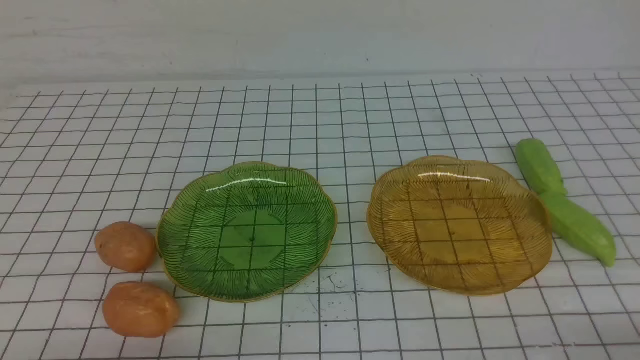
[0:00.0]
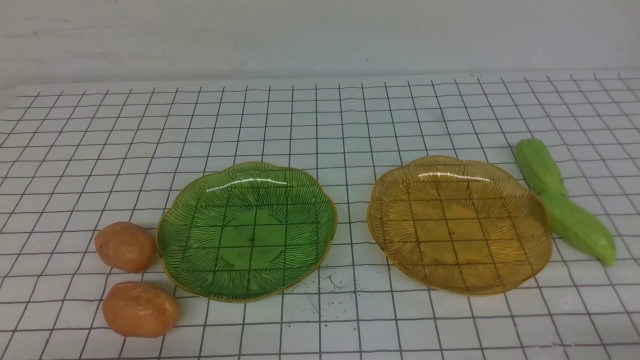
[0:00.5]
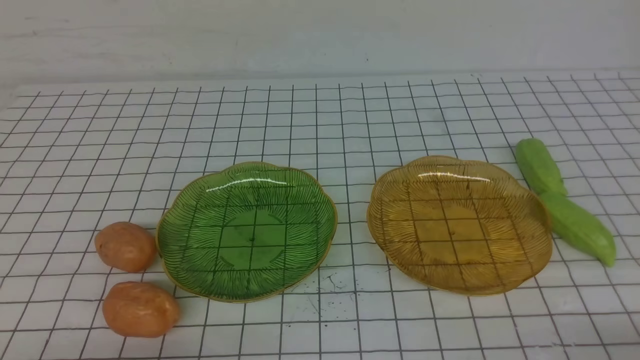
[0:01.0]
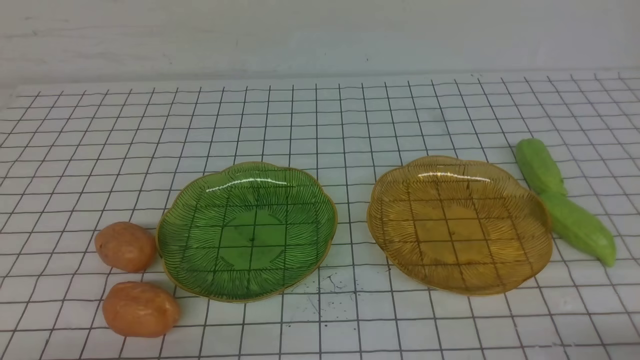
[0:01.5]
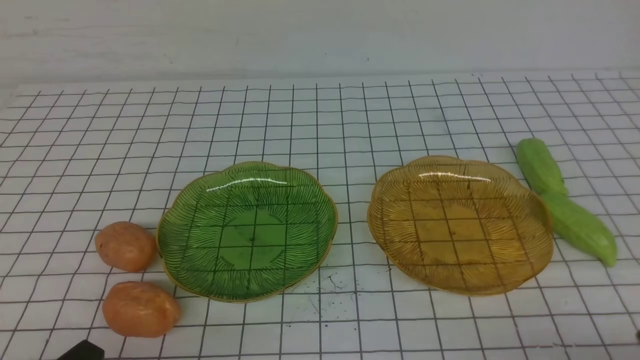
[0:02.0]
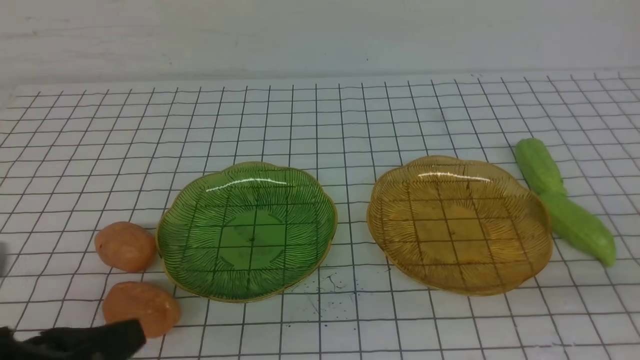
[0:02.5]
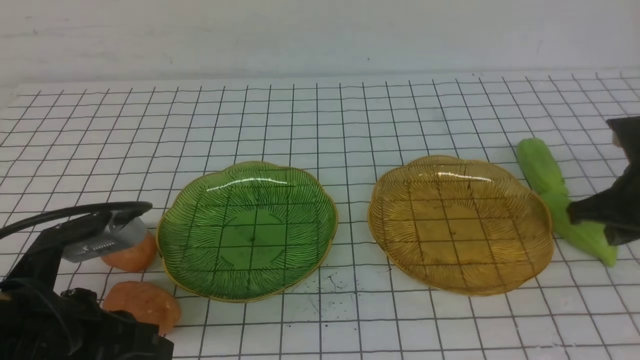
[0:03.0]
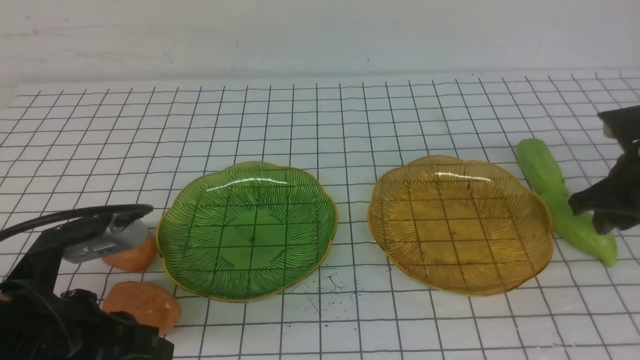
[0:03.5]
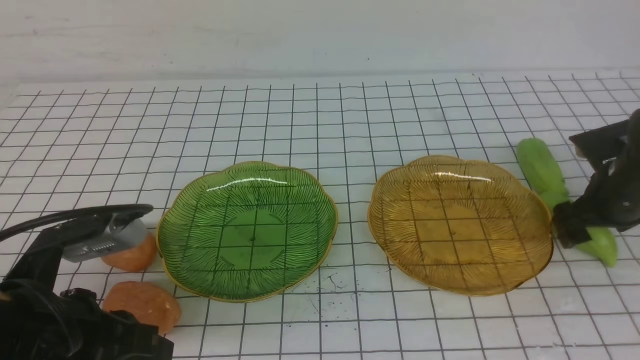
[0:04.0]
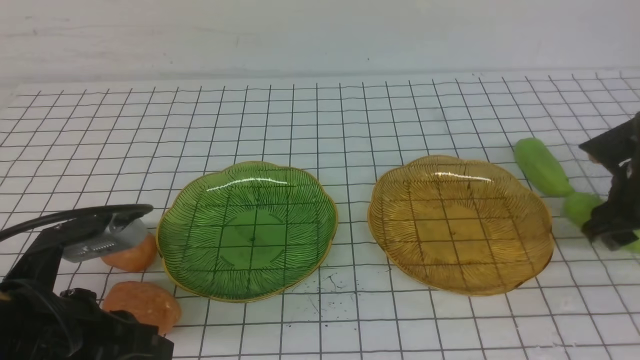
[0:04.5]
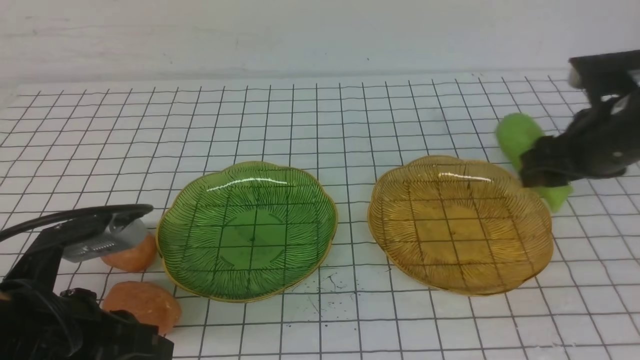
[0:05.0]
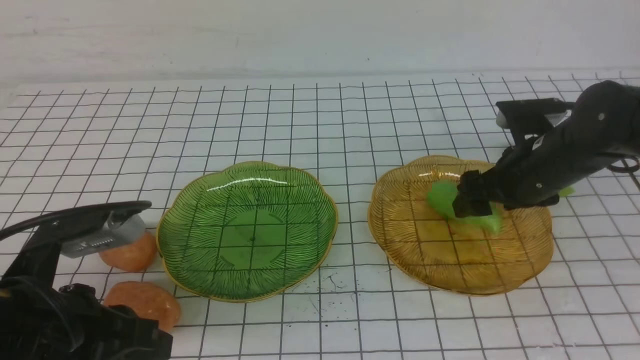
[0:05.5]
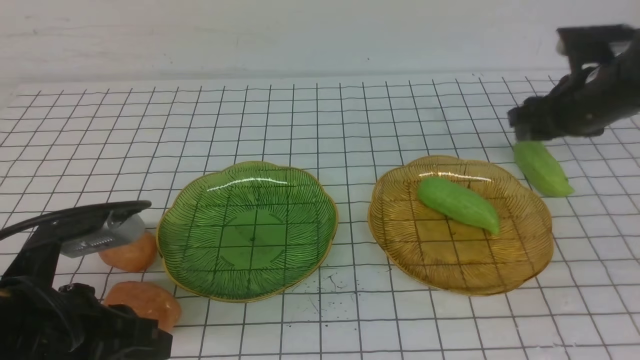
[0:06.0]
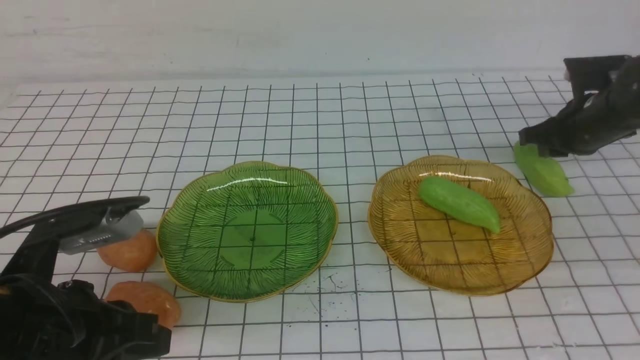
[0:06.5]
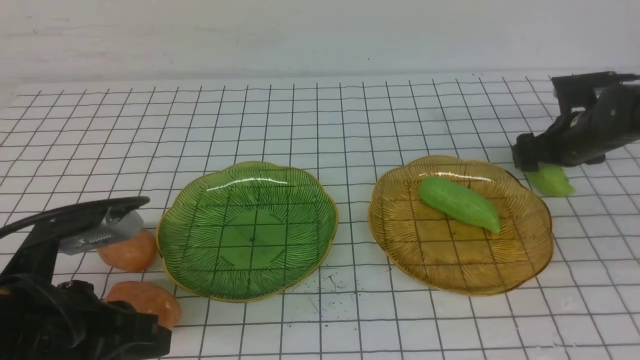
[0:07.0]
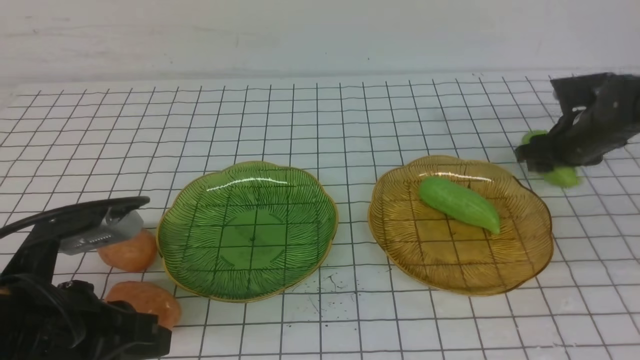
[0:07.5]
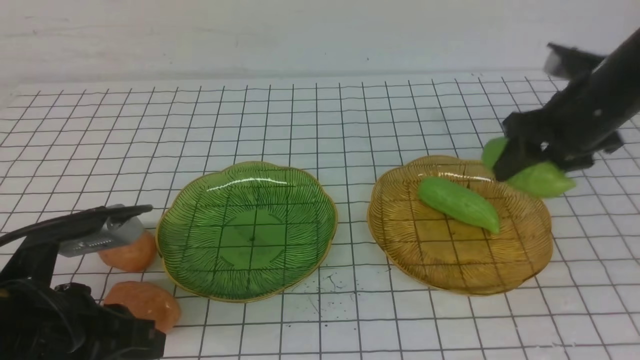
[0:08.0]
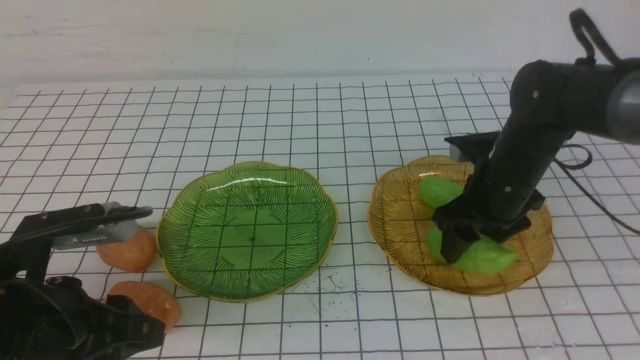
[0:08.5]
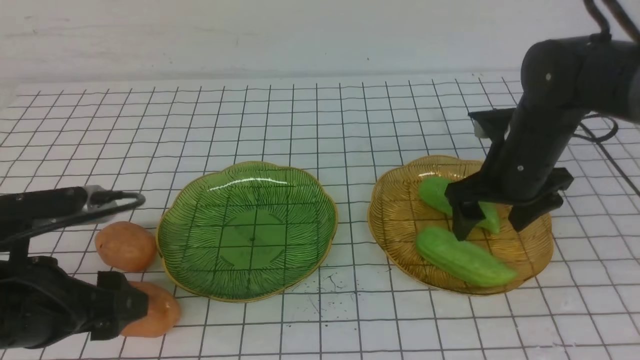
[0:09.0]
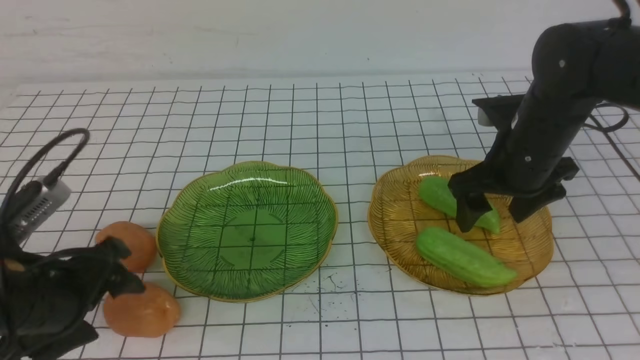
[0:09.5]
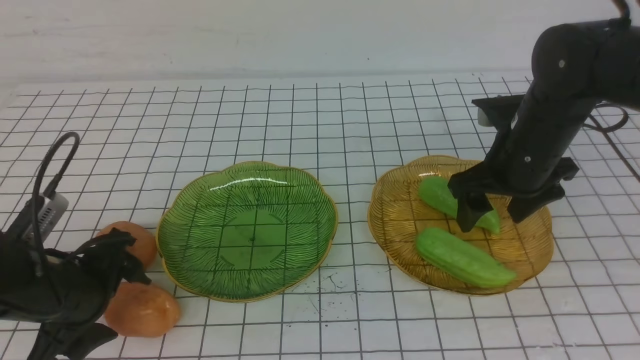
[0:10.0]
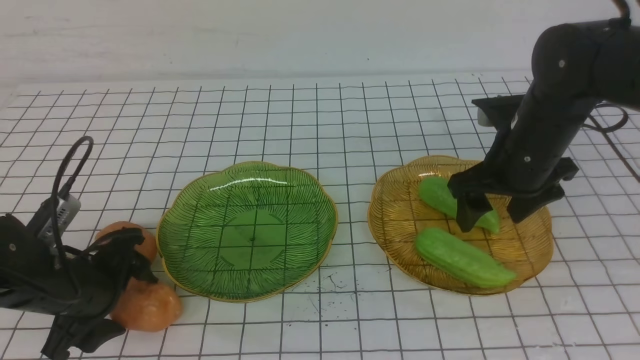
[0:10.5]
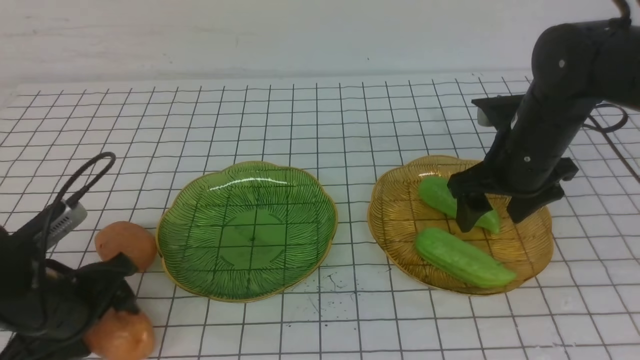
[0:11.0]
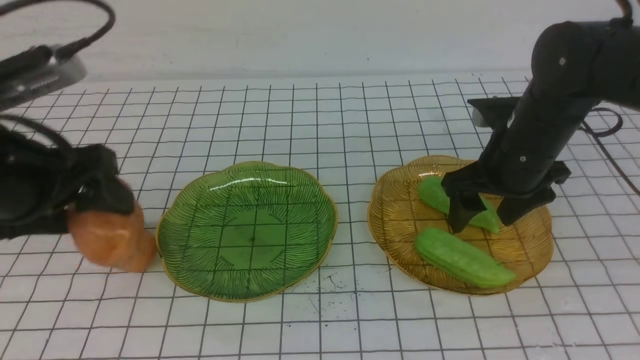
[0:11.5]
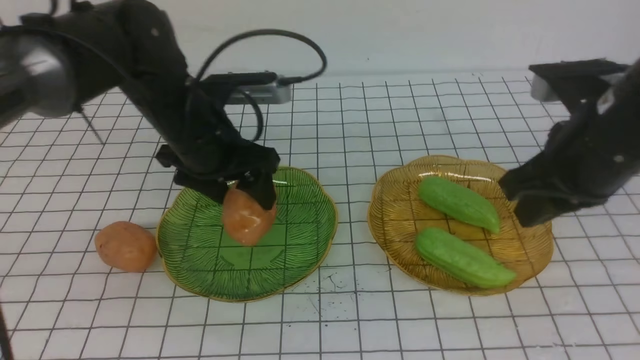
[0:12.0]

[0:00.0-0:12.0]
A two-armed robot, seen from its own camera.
Step, 0:00.0 to 0:08.5: use the right arm to grab a chayote and put it into the right plate.
0:02.0 to 0:04.0: The left gripper shifts about 10 cm forward. Meanwhile the right gripper travels forward by some 30 cm, and opens up.
0:04.0 to 0:06.0: The right gripper goes some 5 cm upward, and closes.
0:06.0 to 0:08.0: The right gripper travels downward and back again, roughly 10 cm each way.
0:08.0 to 0:10.0: The right gripper heads to the left, covering about 5 cm, while the left gripper shifts some 10 cm forward and downward, and opens its fingers.
0:10.0 to 0:12.0: The left gripper travels forward, to the right and upward by approximately 20 cm. The right gripper moves backward and upward, roughly 10 cm, and closes its fingers.

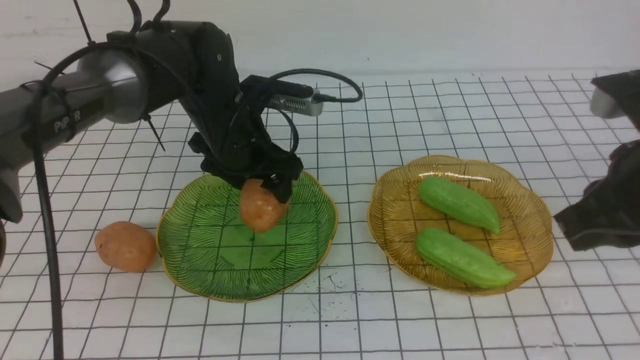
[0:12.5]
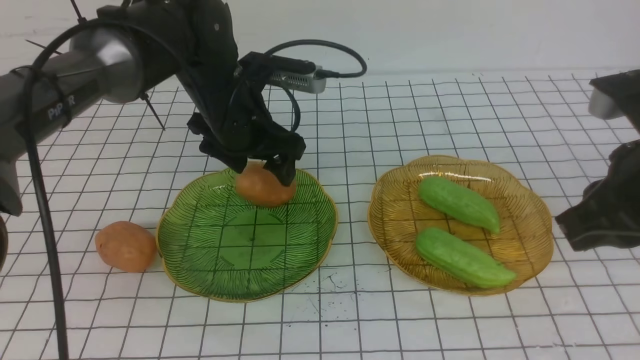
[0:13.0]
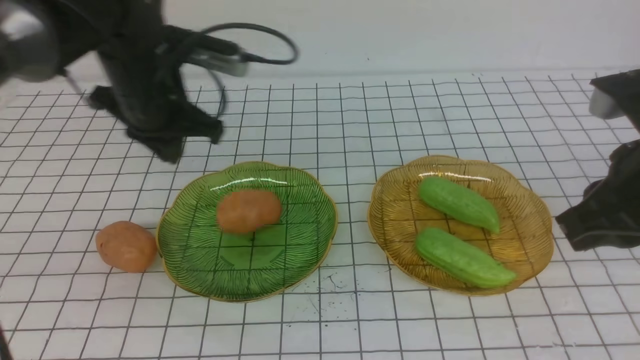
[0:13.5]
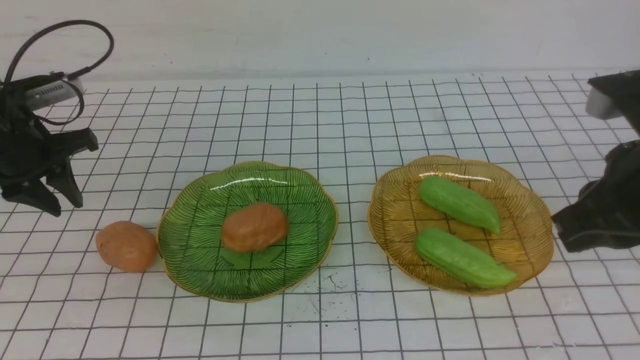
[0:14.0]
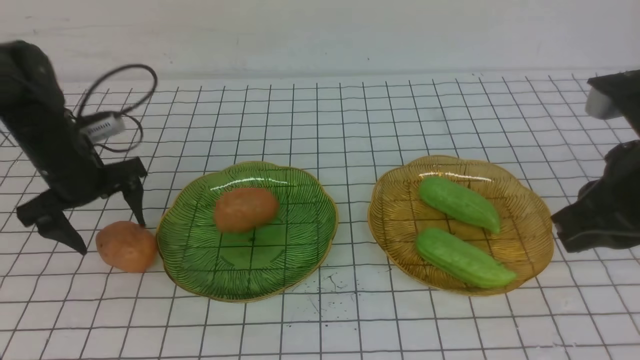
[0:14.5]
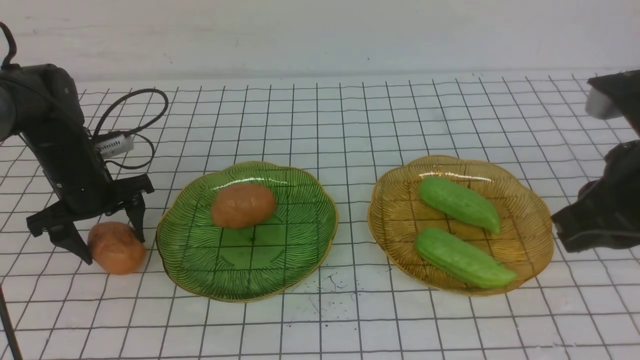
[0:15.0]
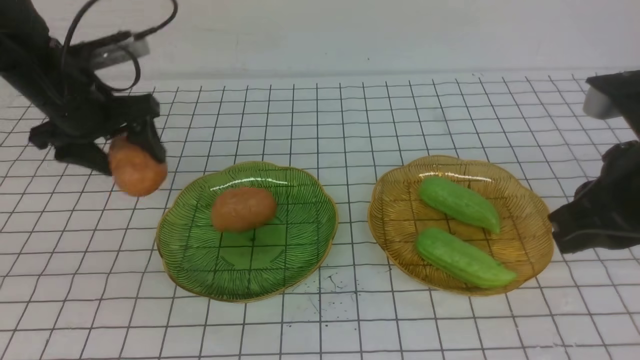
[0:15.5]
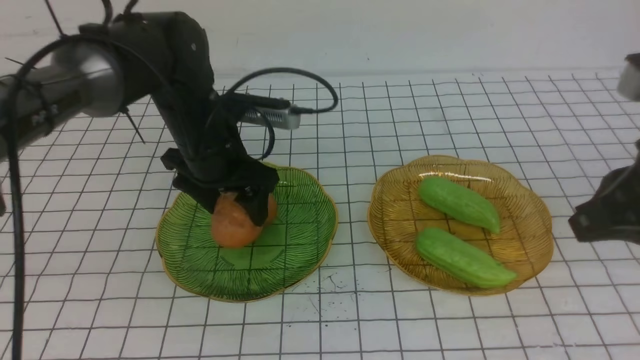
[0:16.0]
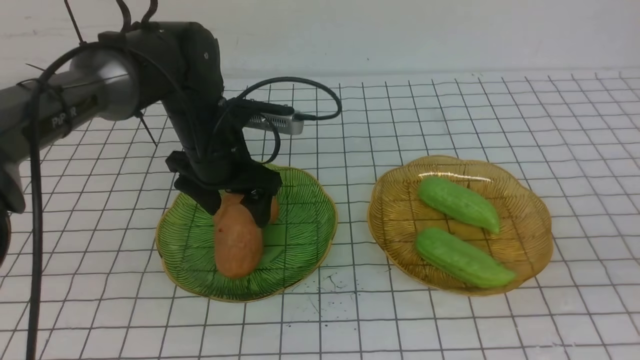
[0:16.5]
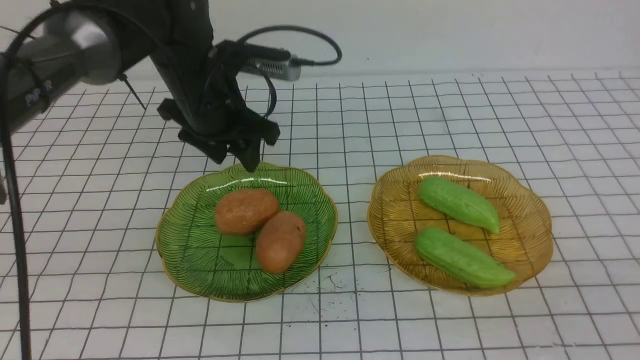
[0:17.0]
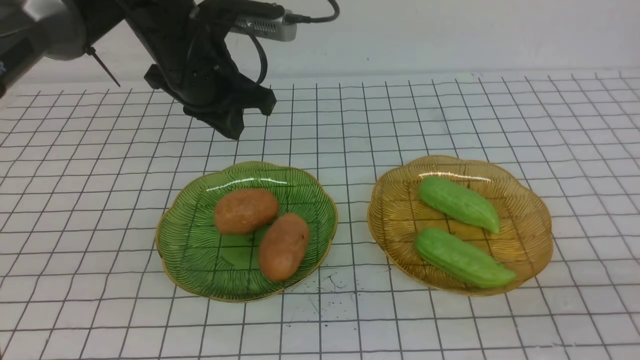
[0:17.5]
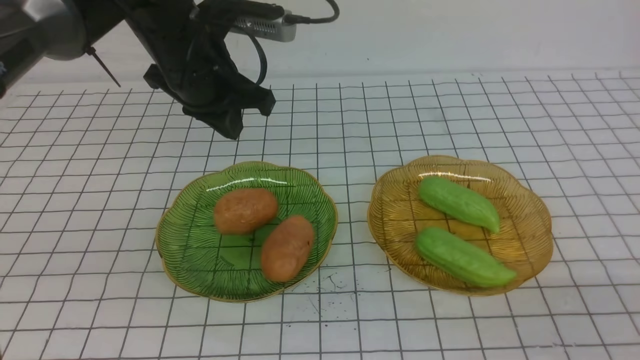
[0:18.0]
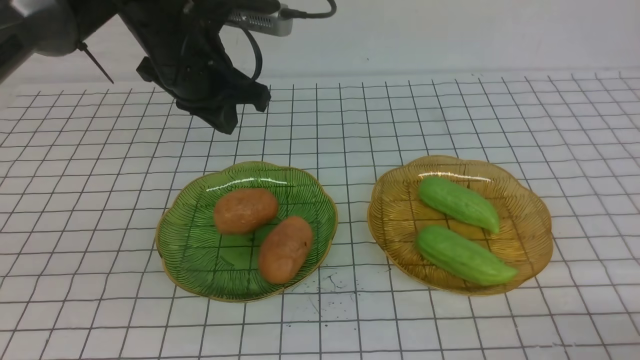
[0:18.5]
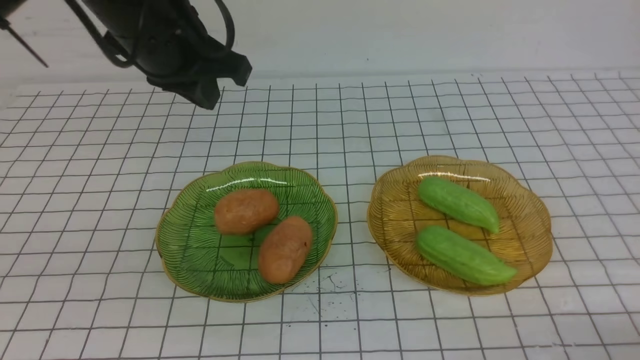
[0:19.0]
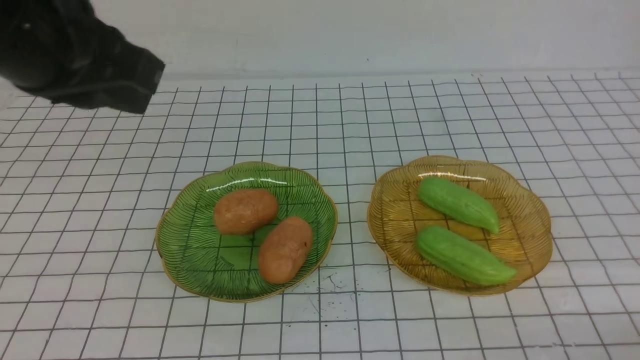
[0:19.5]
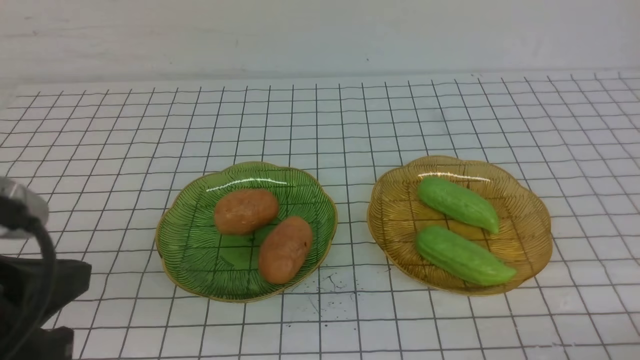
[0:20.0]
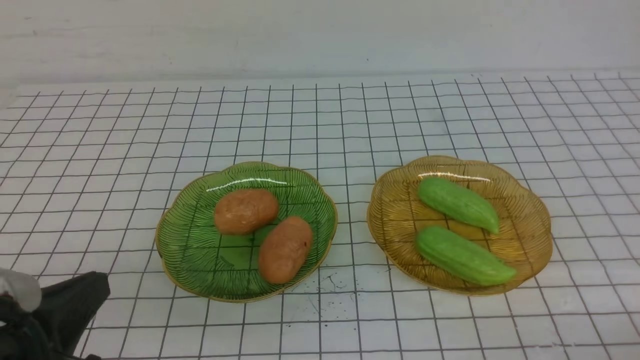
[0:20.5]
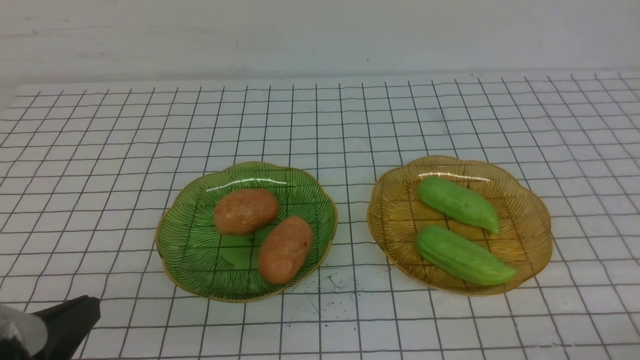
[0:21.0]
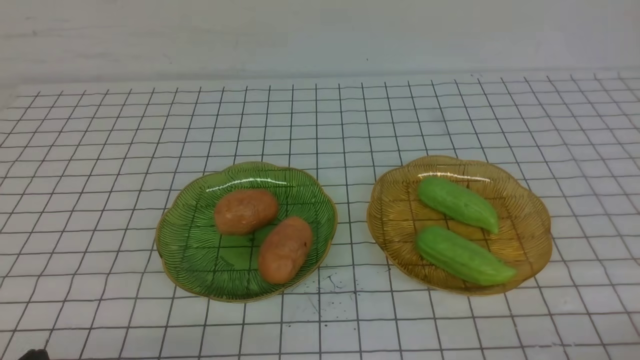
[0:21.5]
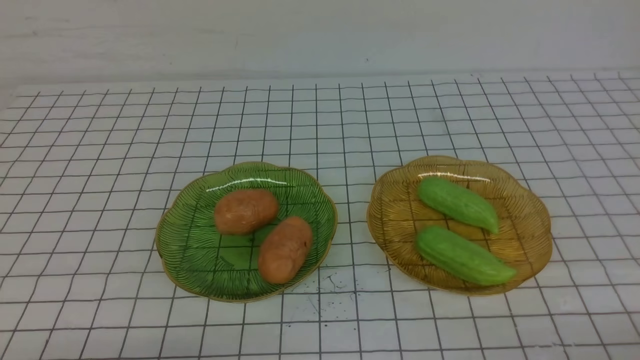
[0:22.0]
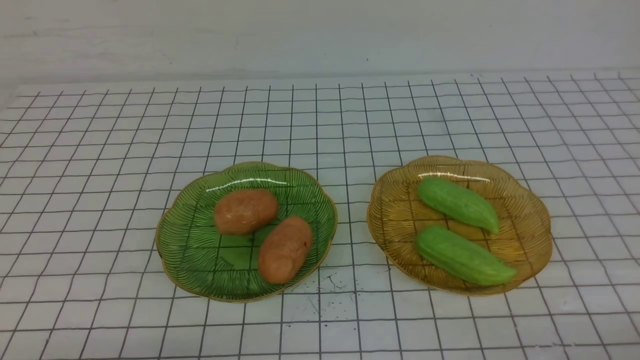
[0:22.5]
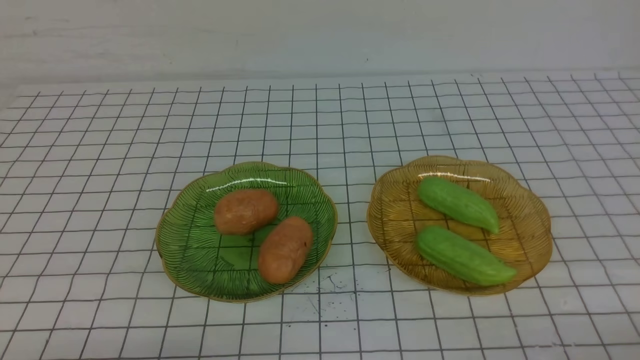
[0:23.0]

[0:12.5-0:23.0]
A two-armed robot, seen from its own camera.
Step, 0:12.5 to 0:16.5: Grab a potato with your left arm and put it on the left plate.
0:12.5 to 0:14.5: The left gripper goes some 20 cm to the left, and closes and opens again.
0:14.5 to 0:16.5: The right gripper travels backward and upward by some 20 cm. The left gripper heads to the right, covering roughly 15 cm.
0:16.5 to 0:19.0: The left gripper shifts approximately 15 cm upward, and closes. Meanwhile the right gripper is displaced downward by approximately 25 cm.
0:19.0 to 0:21.0: The left gripper goes some 30 cm backward and downward.
0:21.0 to 0:23.0: The left gripper travels downward by about 5 cm.
